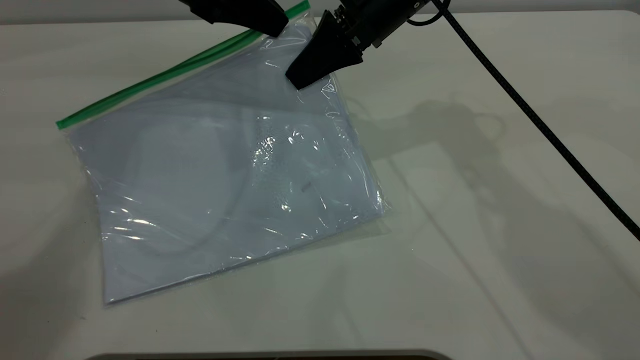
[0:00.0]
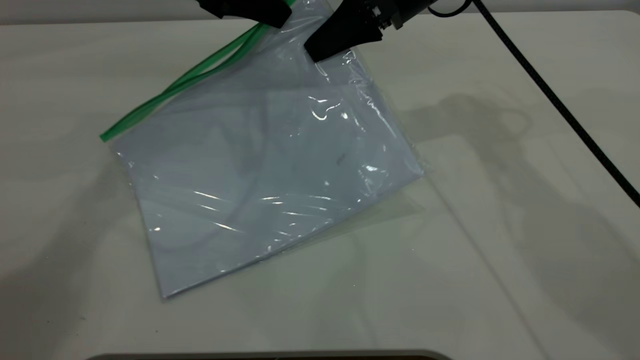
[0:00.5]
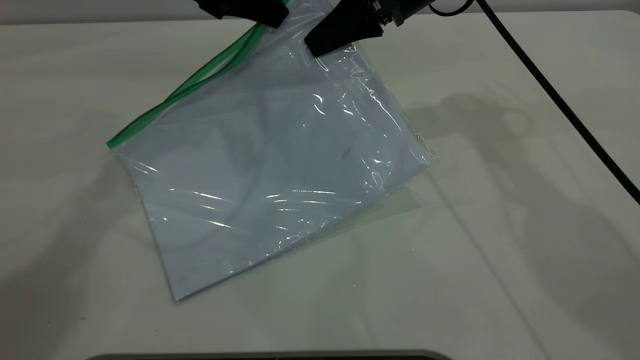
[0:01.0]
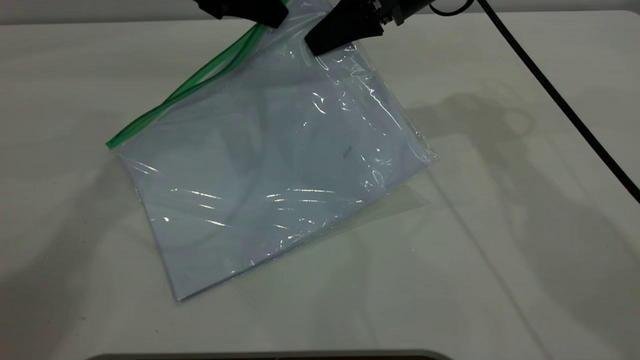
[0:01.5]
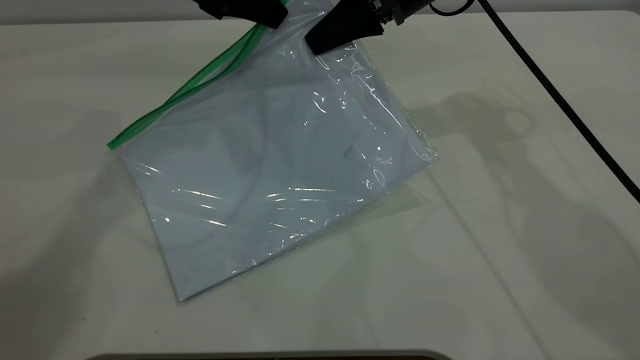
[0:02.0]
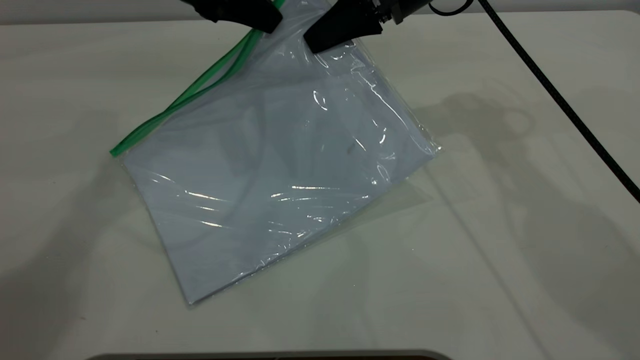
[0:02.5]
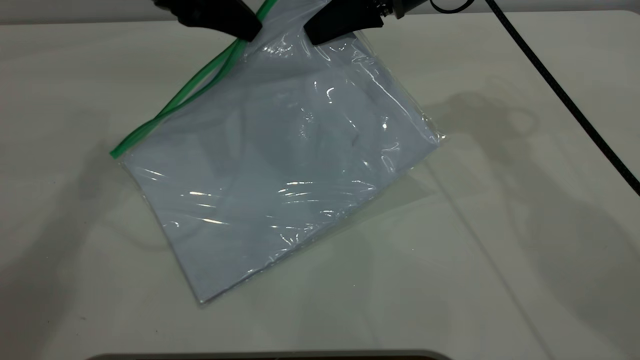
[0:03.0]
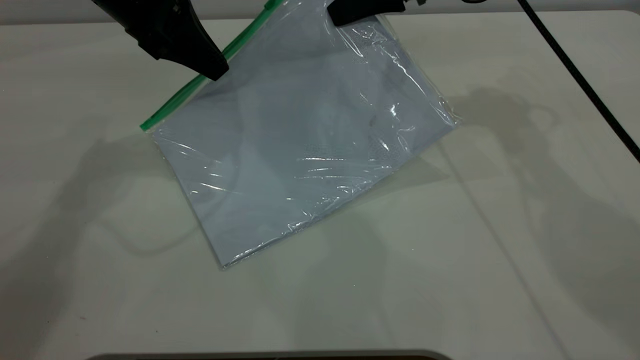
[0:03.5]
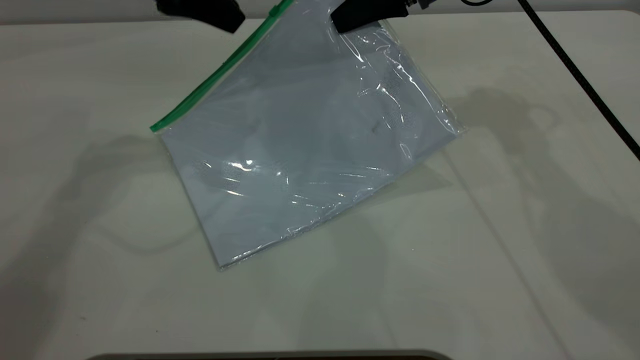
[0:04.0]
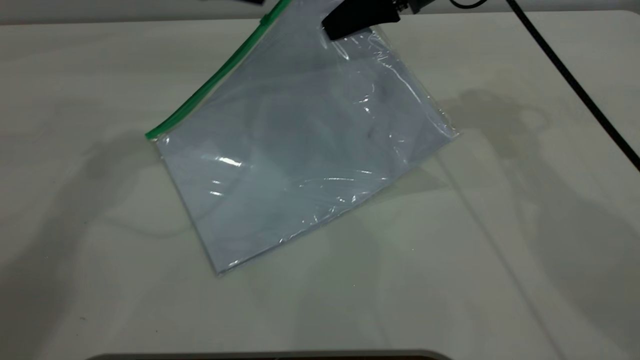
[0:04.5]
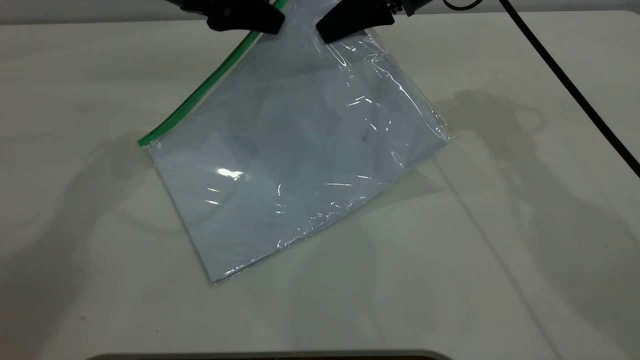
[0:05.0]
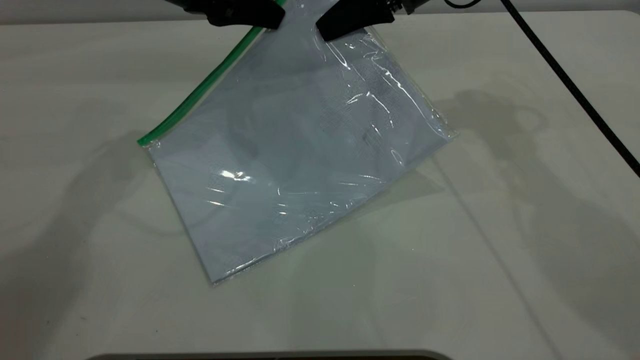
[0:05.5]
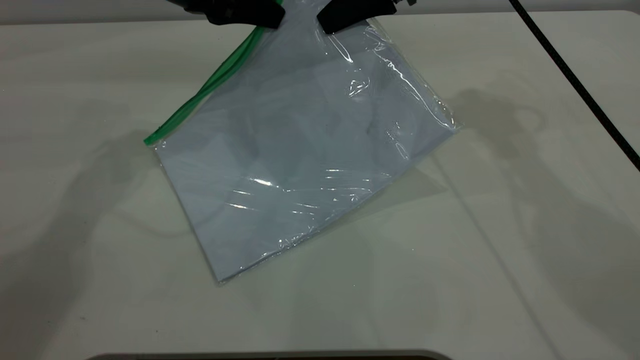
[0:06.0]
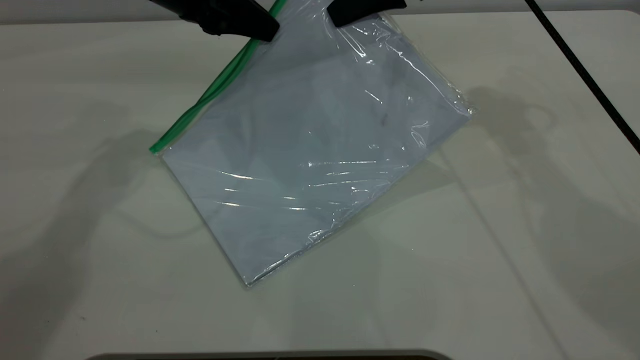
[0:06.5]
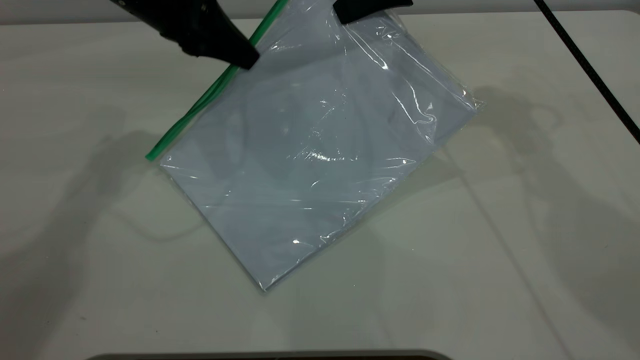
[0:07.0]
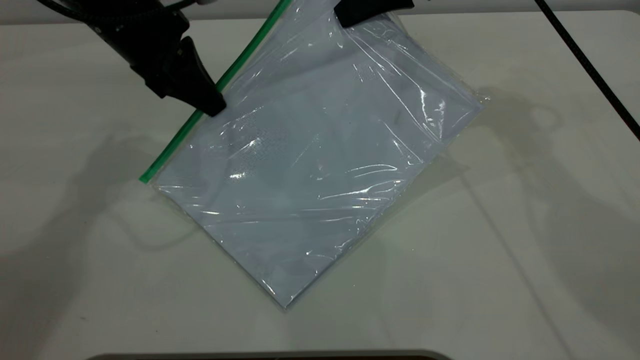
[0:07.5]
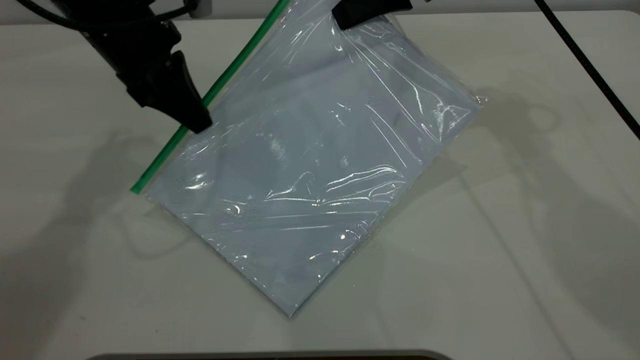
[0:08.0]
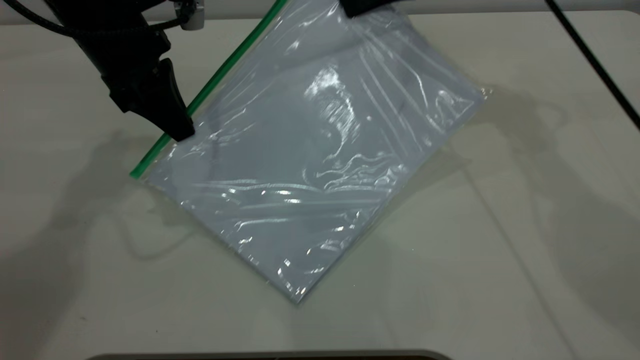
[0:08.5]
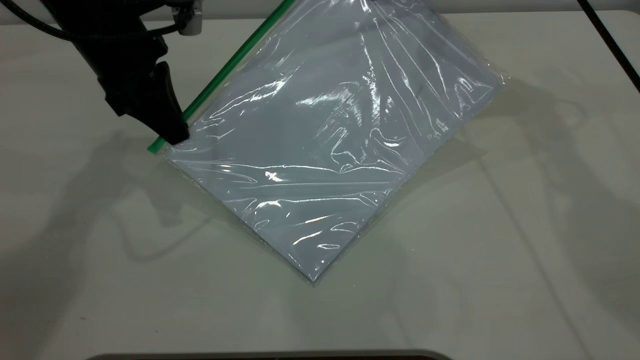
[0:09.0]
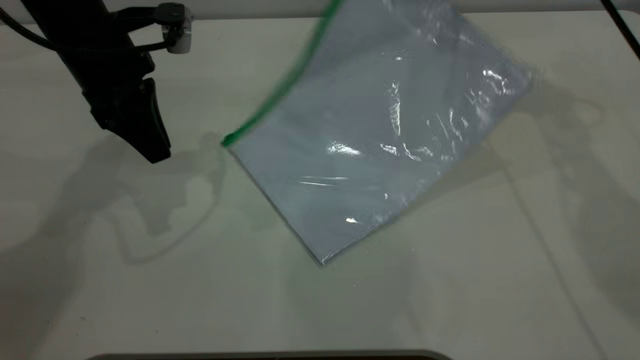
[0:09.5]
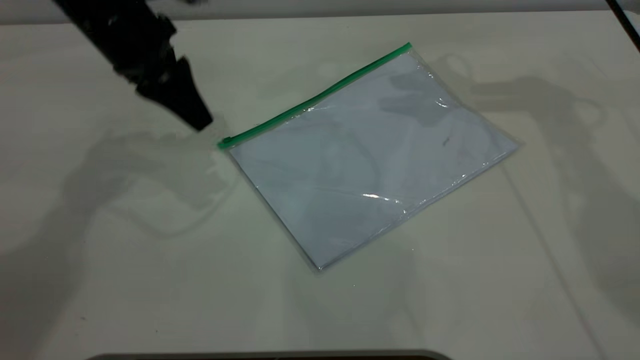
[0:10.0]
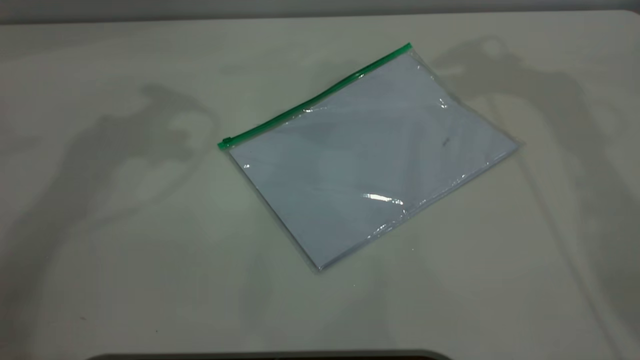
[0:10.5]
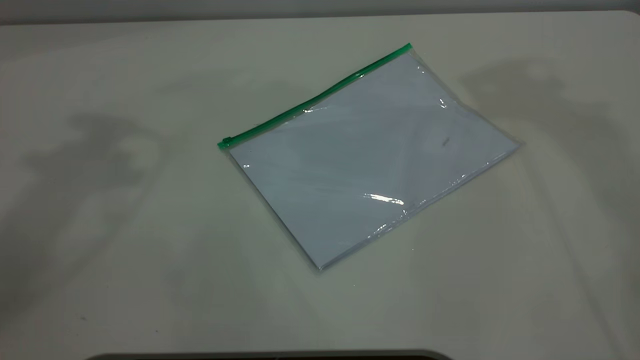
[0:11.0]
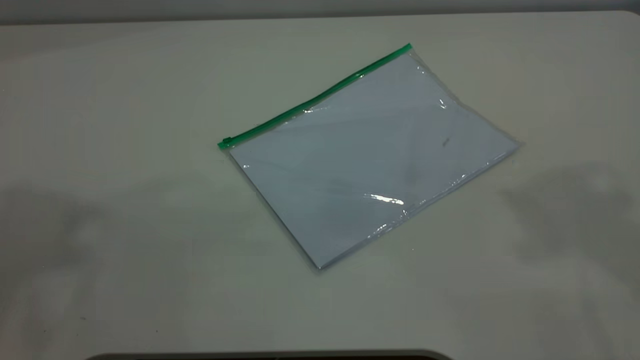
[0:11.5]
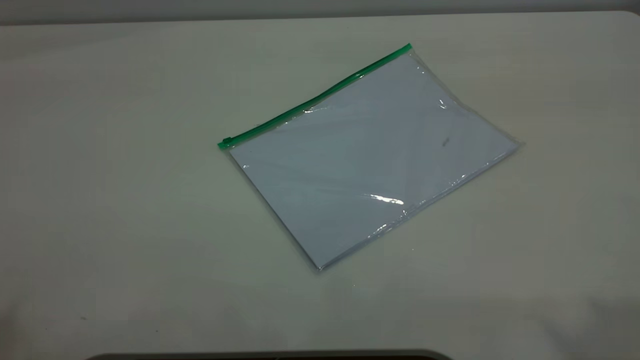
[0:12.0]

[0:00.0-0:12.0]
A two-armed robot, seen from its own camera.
Step, 0:00.0 to 0:09.0: Pulling up the zipper on the transparent plastic bag with the left gripper to close it.
0:00.0 to 0:02.0: There are only small adjustments of the grippers.
0:02.0 to 0:04.0: The left gripper opens.
0:04.0 to 0:06.0: The left gripper shifts by roughly 5 cm, and closes its fingers.
0:06.0 to 0:08.0: The left gripper shifts by some 5 cm.
0:08.0 to 0:10.0: The right gripper heads to the right, covering about 5 cm, and opens its fingers; the left gripper opens up.
0:10.0 to 0:12.0: The left gripper heads upward and backward, covering approximately 50 cm.
